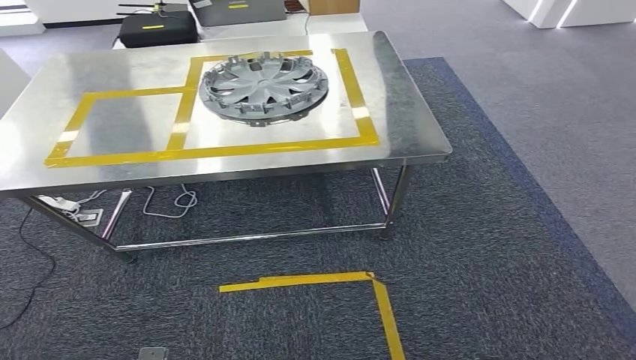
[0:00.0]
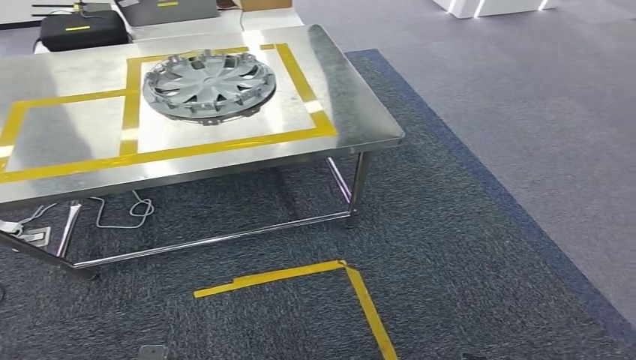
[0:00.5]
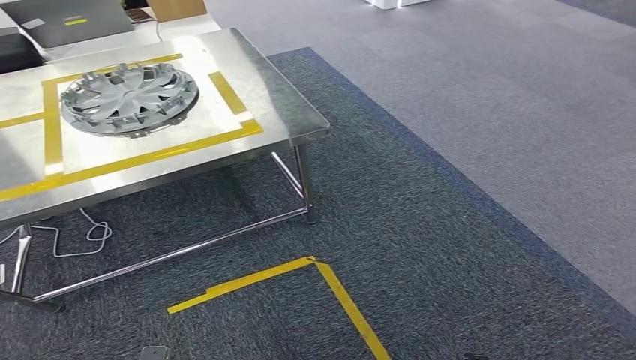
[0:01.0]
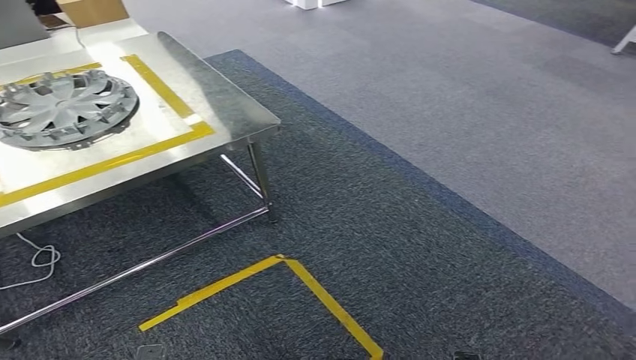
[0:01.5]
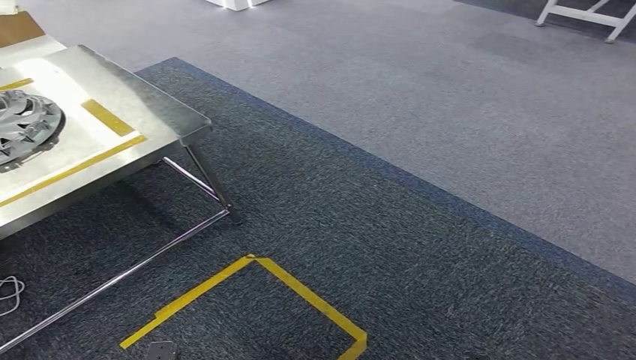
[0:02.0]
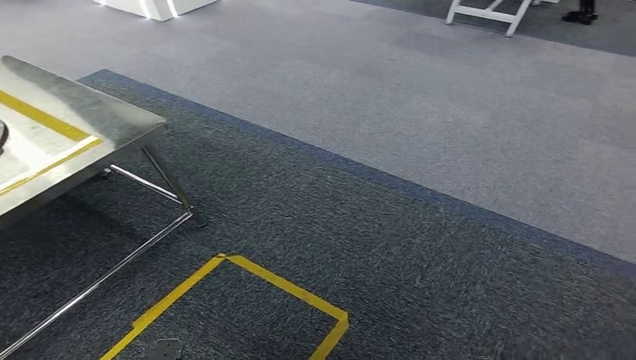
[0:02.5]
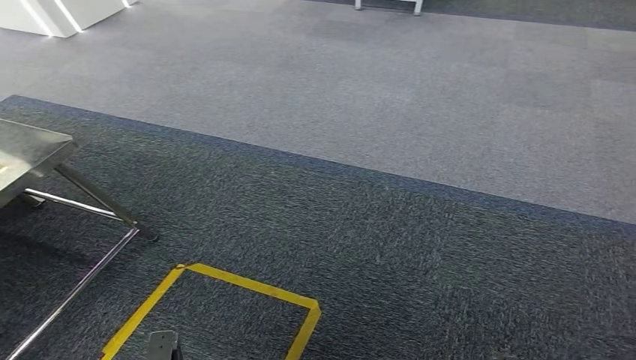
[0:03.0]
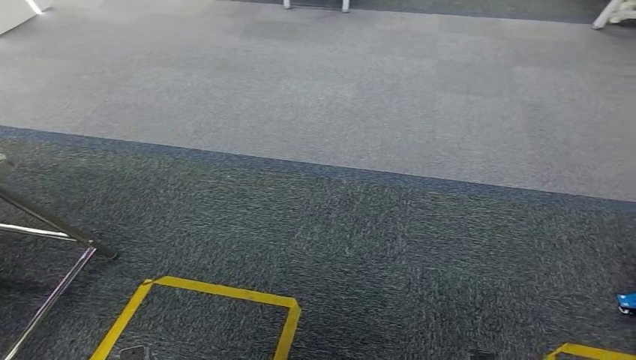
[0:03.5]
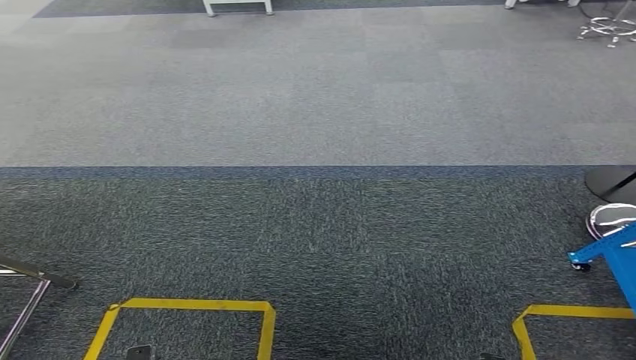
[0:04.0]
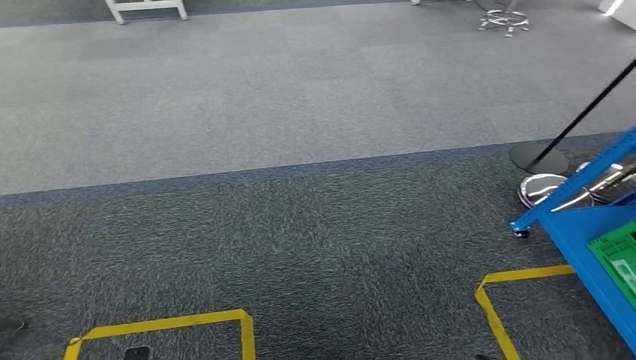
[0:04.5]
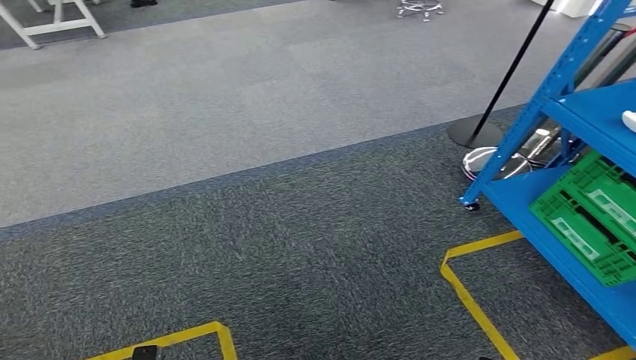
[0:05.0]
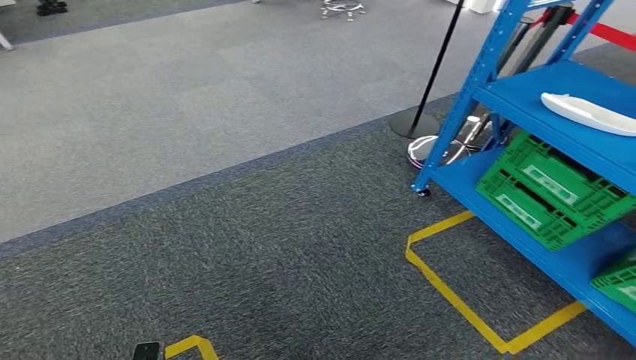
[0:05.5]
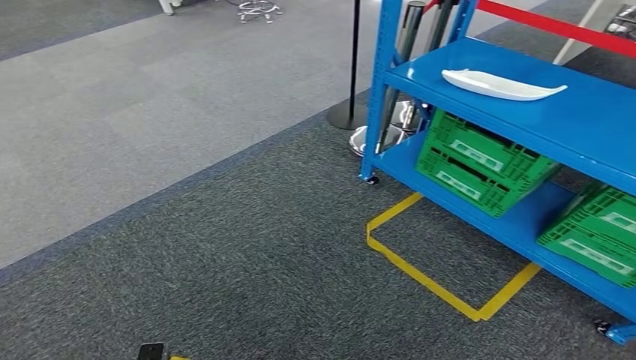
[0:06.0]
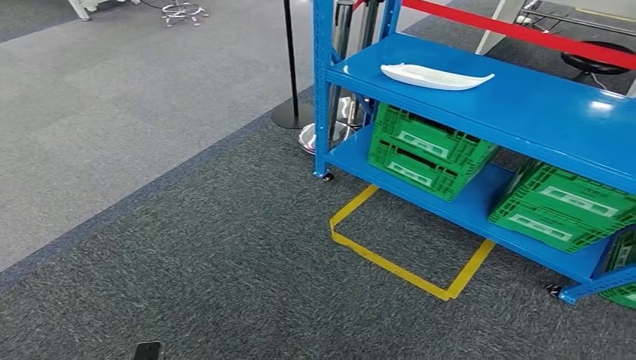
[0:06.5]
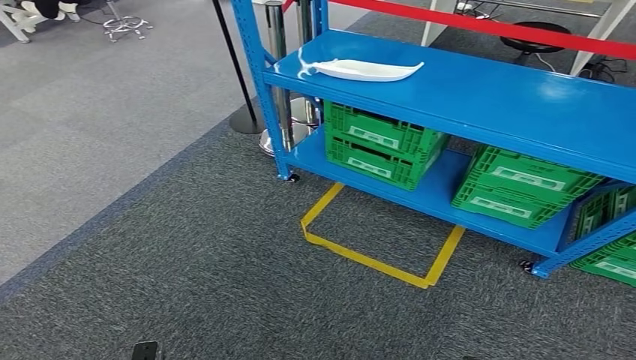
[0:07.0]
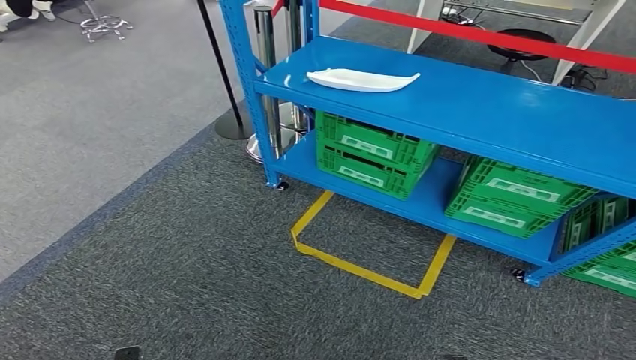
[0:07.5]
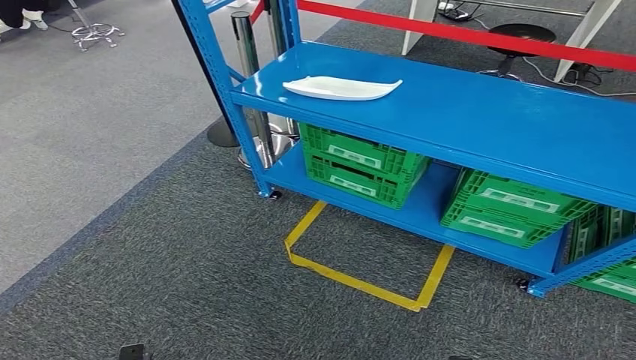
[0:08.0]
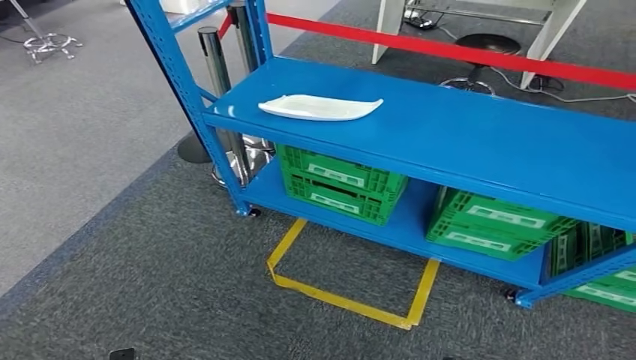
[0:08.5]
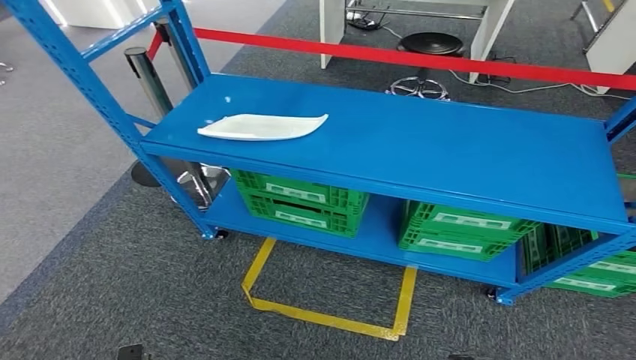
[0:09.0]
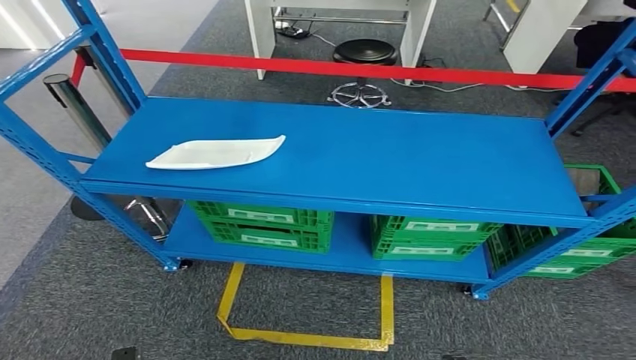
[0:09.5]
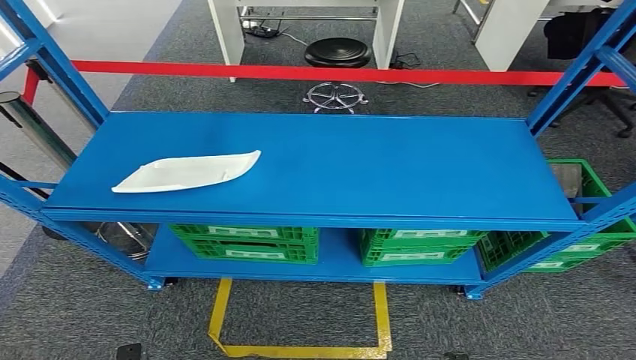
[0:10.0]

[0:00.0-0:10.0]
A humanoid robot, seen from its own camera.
Step, 0:01.5 to 0:10.0: Return to the initial position at the workbench.

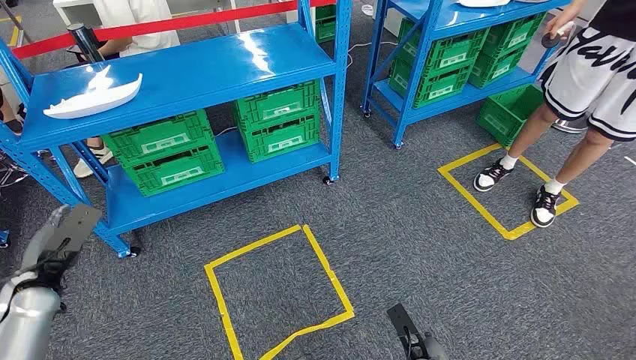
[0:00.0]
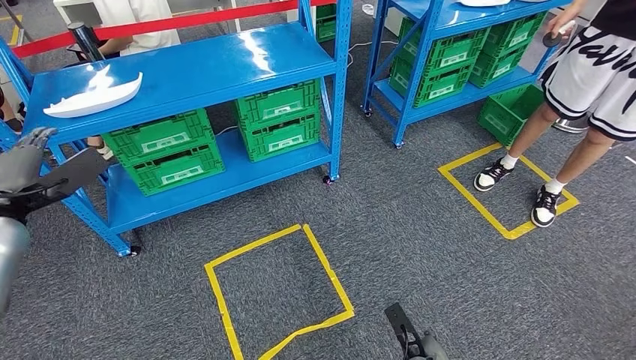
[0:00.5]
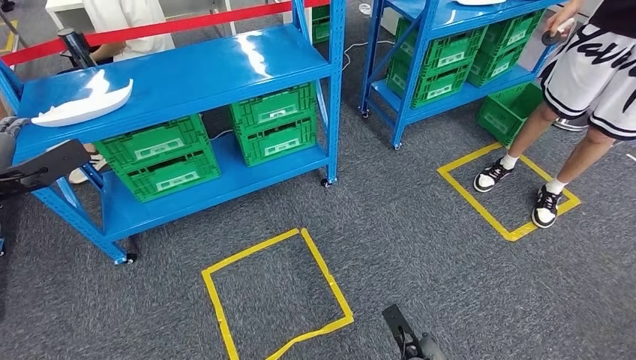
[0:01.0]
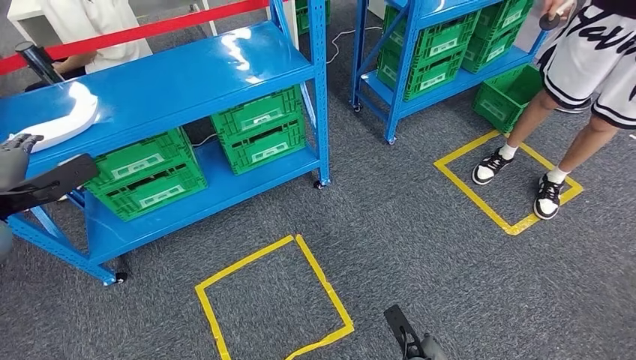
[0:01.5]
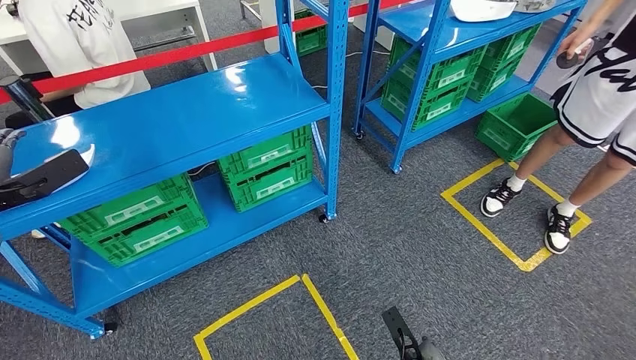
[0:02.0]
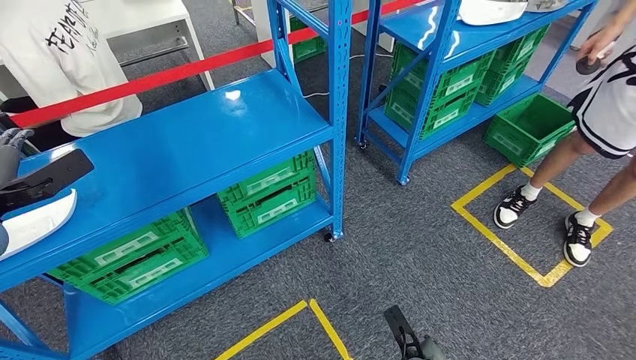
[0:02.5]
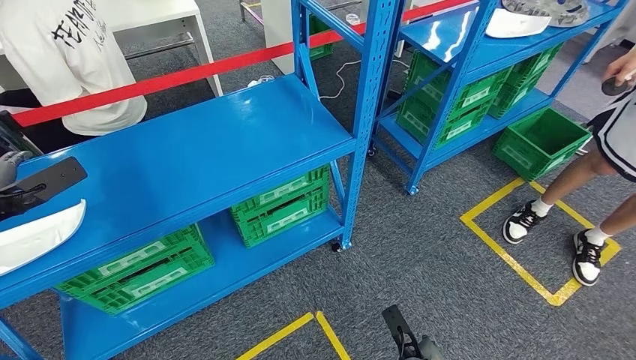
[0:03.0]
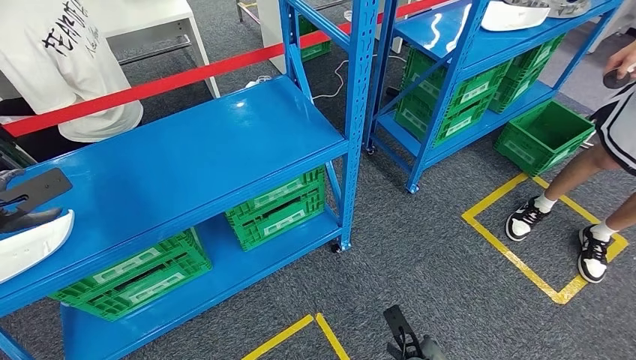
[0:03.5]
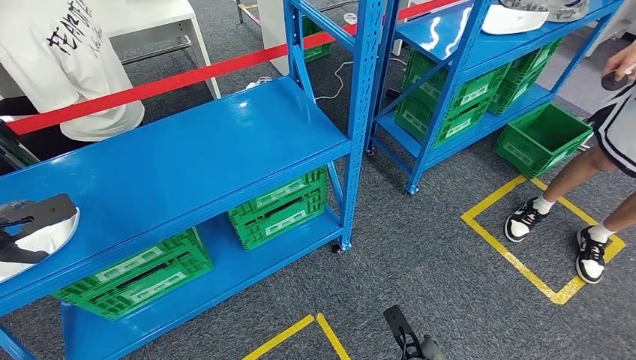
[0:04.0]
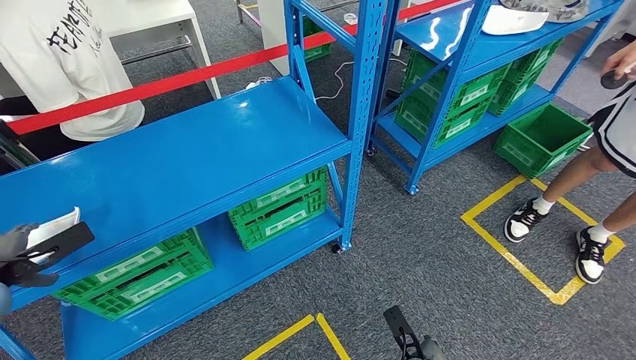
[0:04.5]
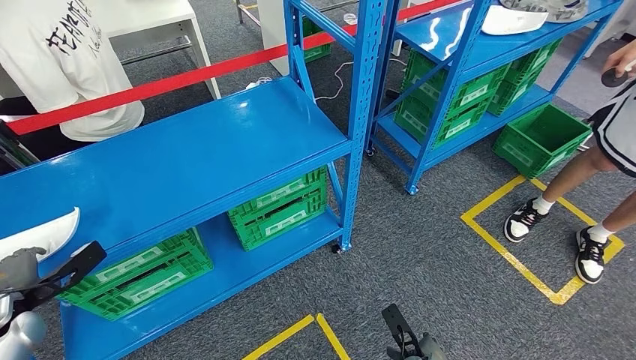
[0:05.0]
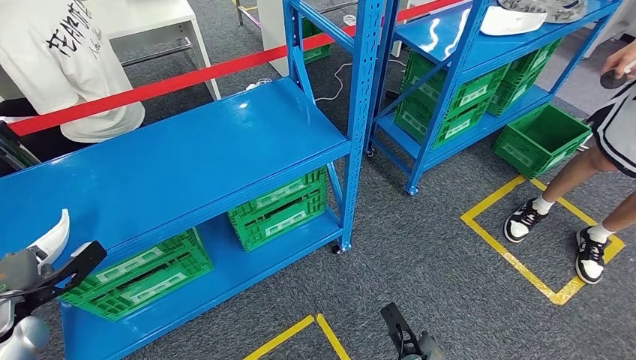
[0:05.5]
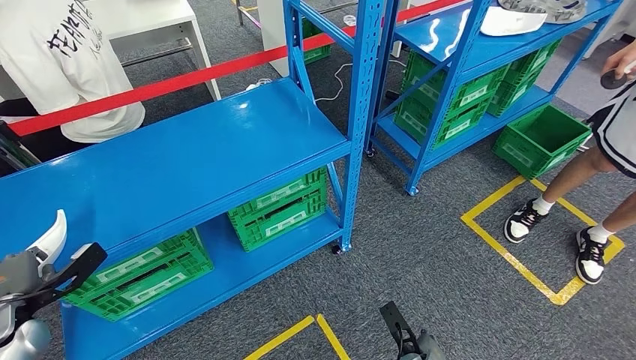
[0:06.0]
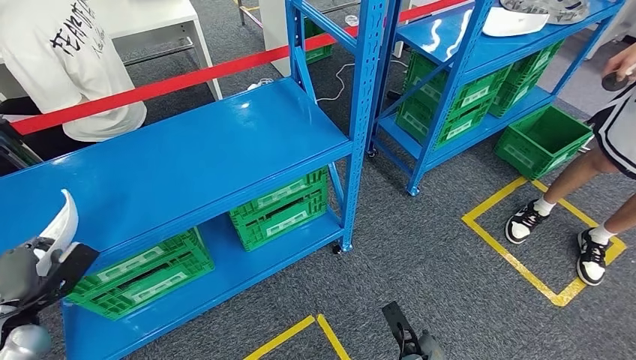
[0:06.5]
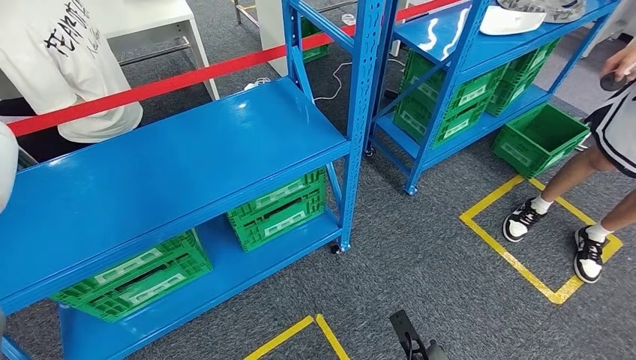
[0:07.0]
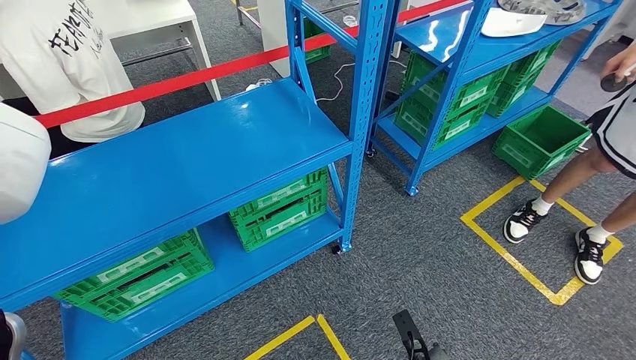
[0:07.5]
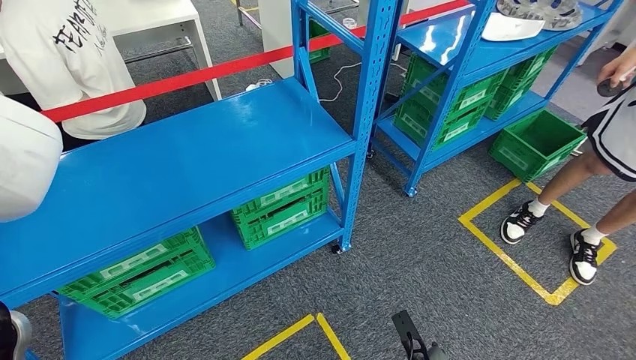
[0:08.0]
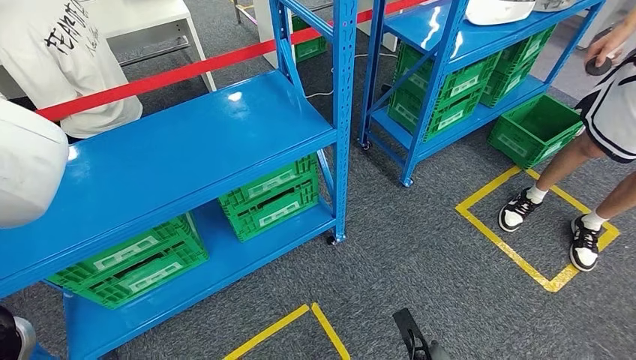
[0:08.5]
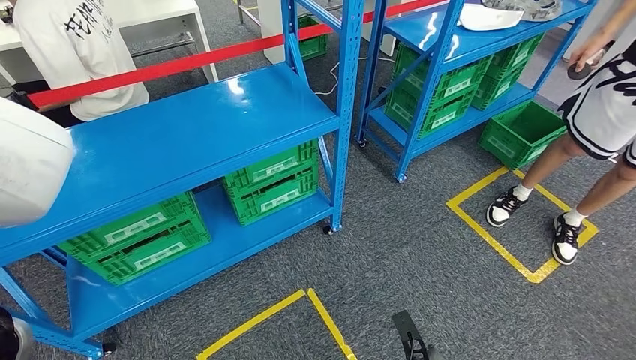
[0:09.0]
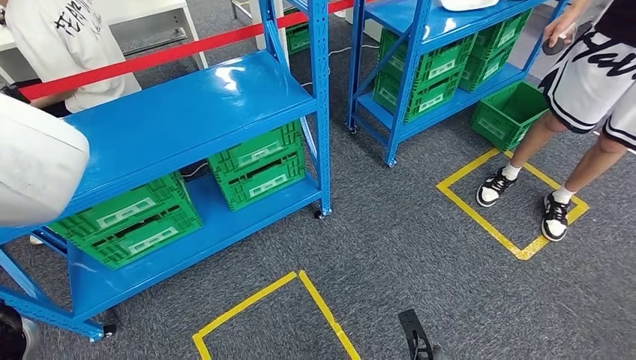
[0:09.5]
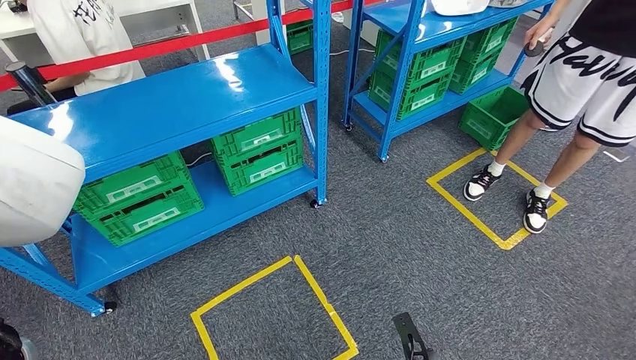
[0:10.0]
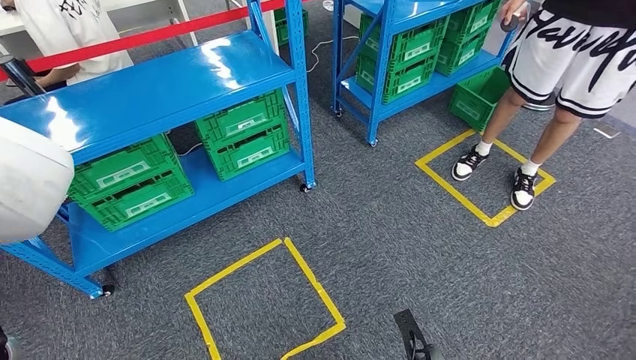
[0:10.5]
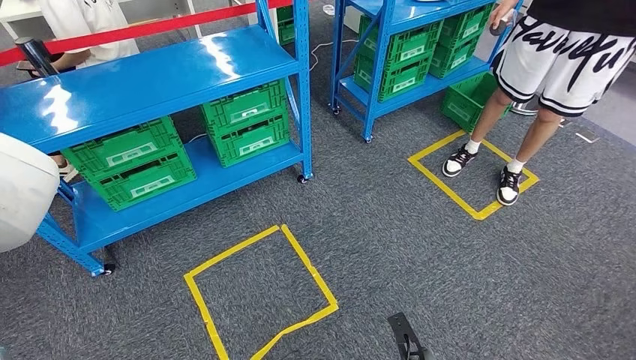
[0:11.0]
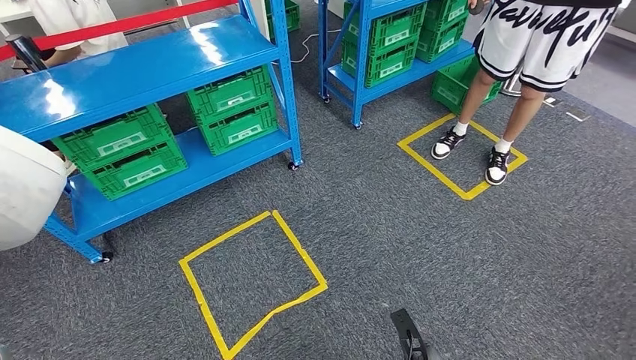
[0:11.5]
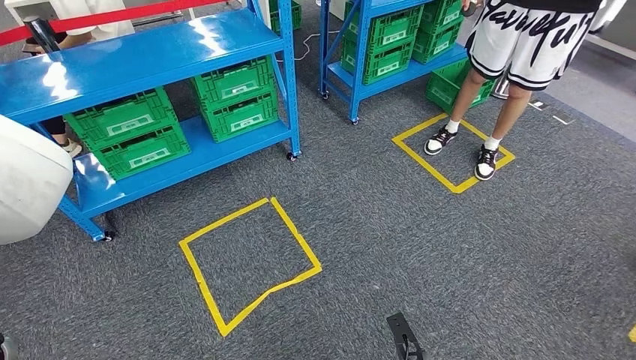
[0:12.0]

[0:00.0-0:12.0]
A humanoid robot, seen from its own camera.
Step, 0:00.0 to 0:08.0: Pick up the small component from the shelf.
0:04.0 to 0:06.0: The left hand goes roughly 15 cm downward and backward.
